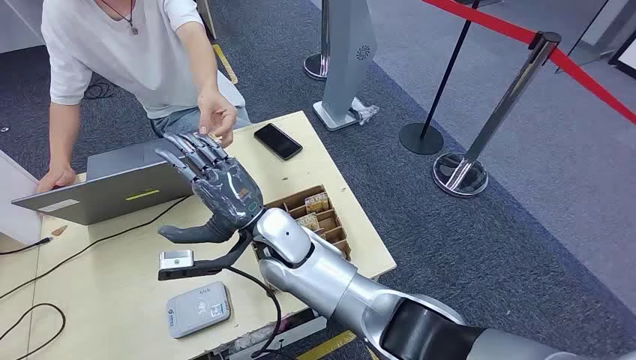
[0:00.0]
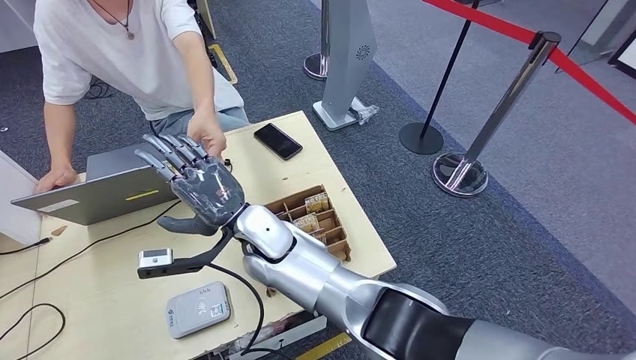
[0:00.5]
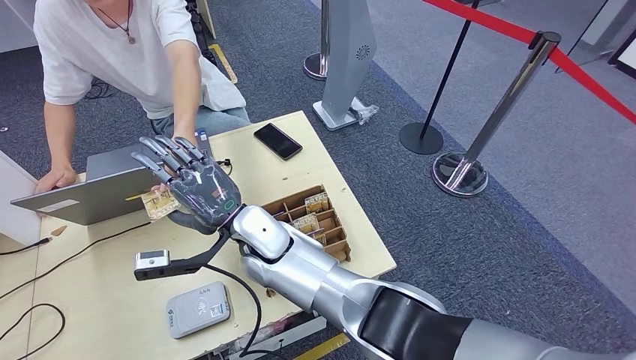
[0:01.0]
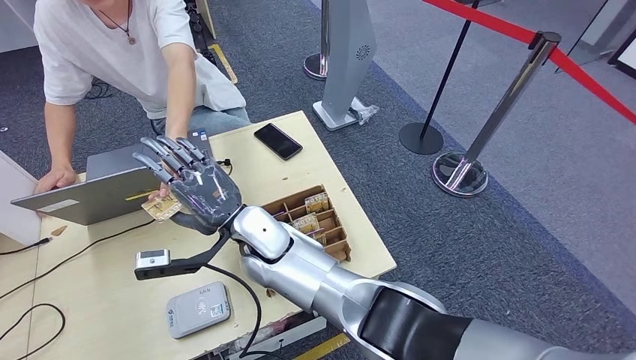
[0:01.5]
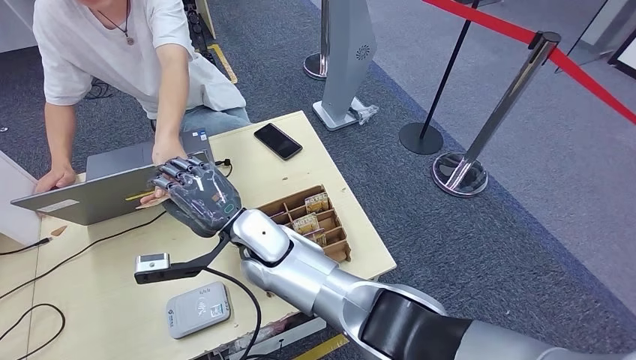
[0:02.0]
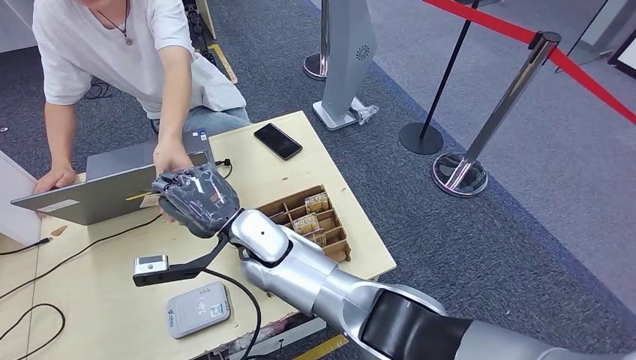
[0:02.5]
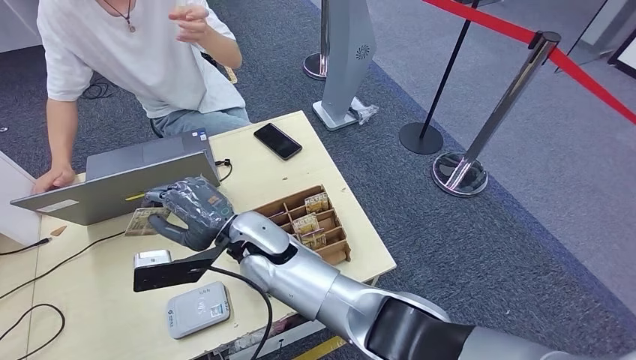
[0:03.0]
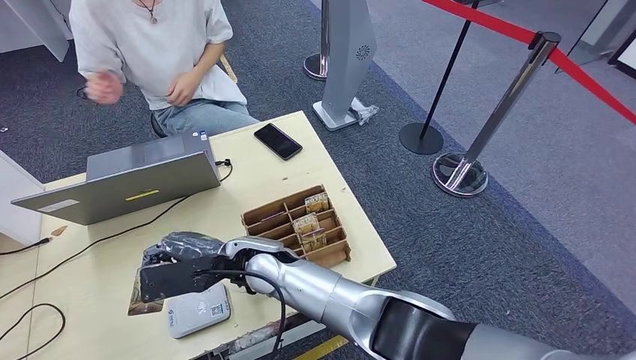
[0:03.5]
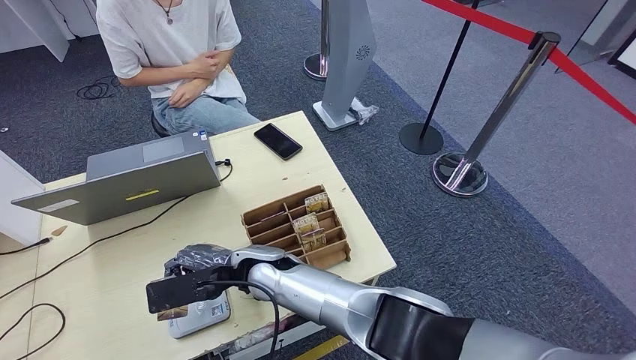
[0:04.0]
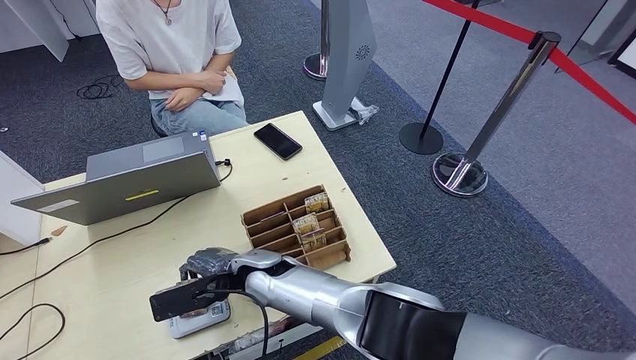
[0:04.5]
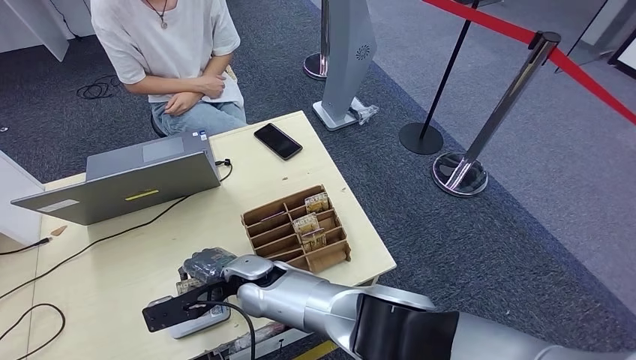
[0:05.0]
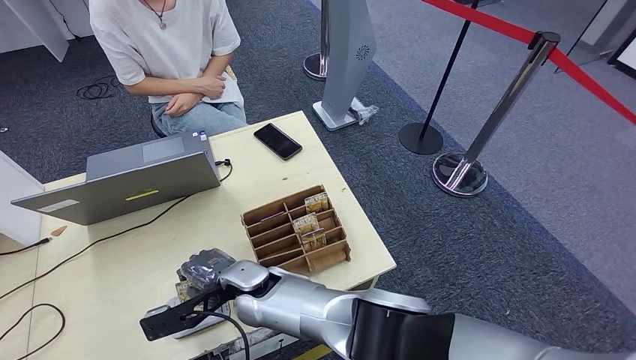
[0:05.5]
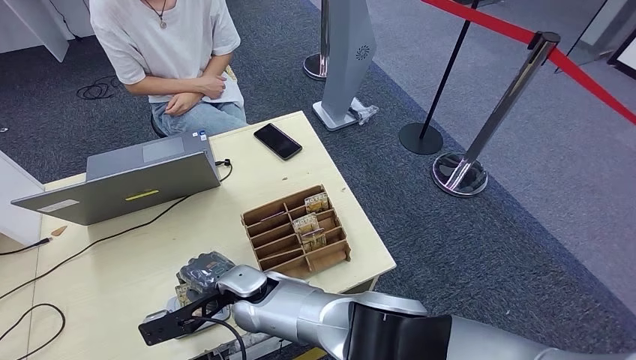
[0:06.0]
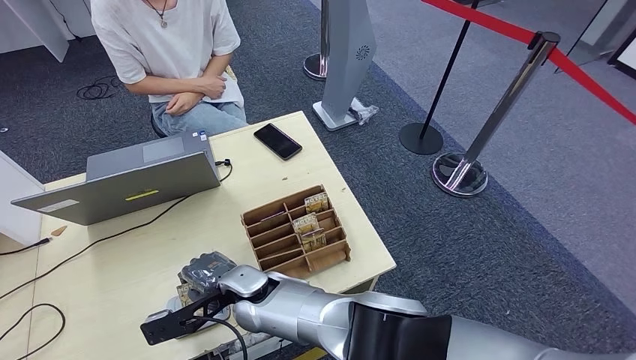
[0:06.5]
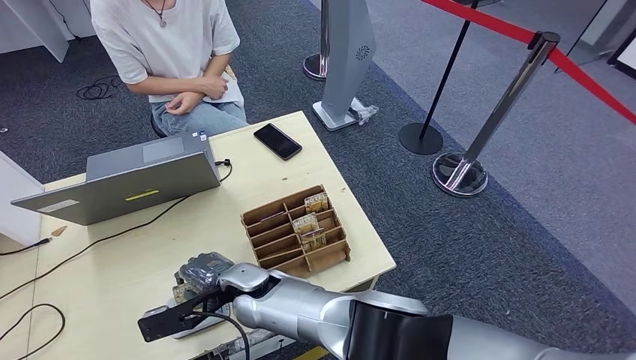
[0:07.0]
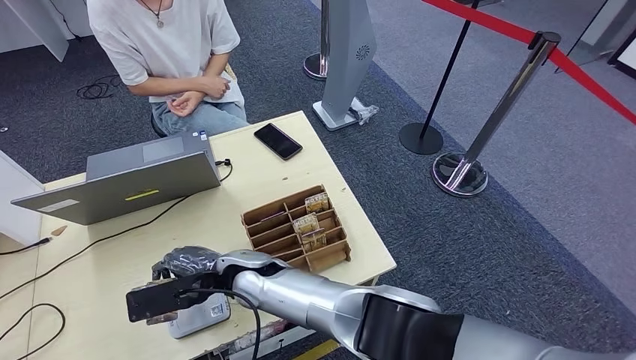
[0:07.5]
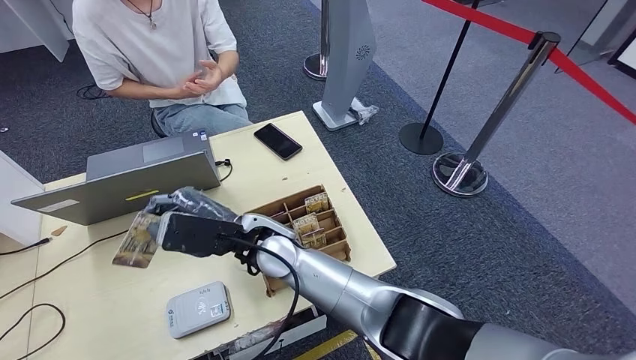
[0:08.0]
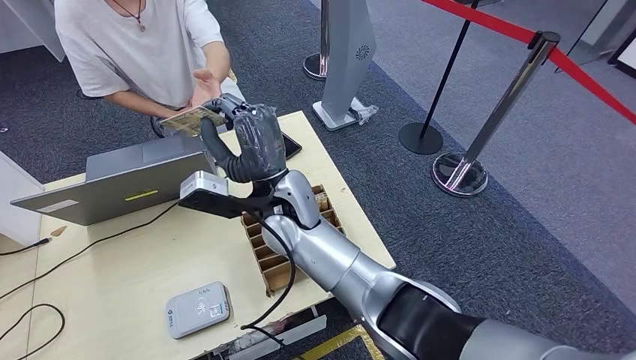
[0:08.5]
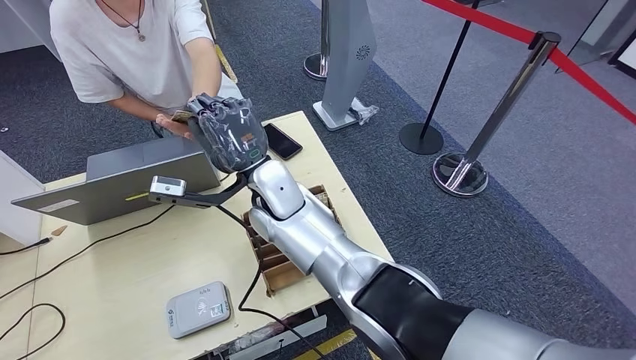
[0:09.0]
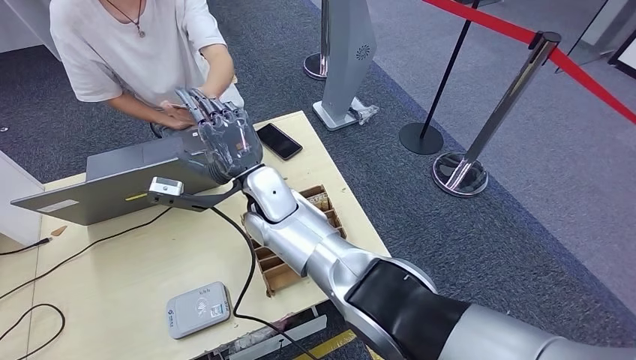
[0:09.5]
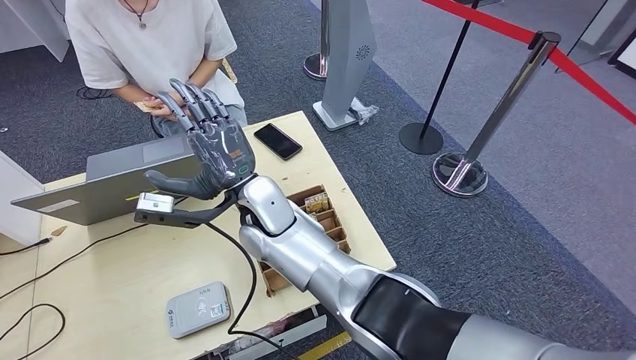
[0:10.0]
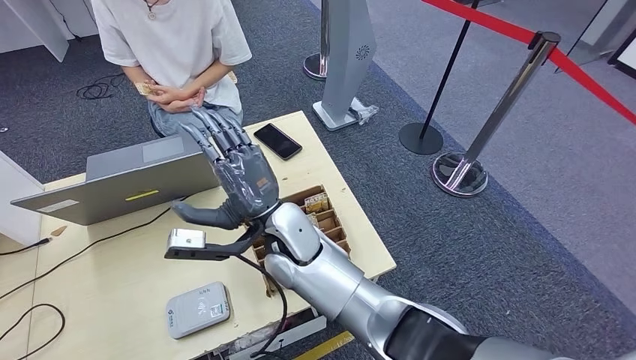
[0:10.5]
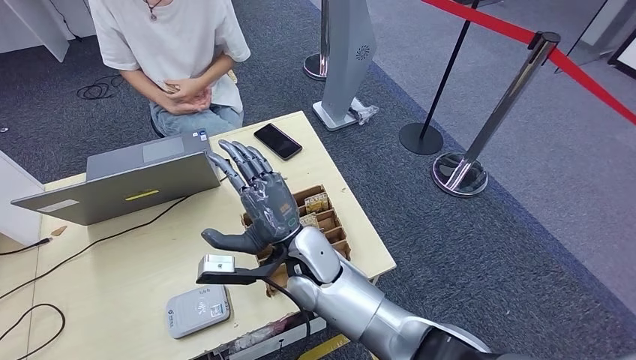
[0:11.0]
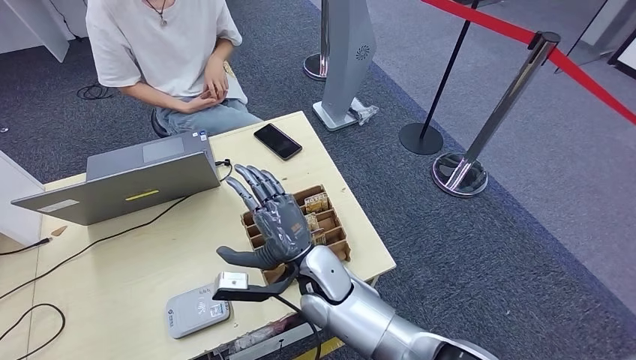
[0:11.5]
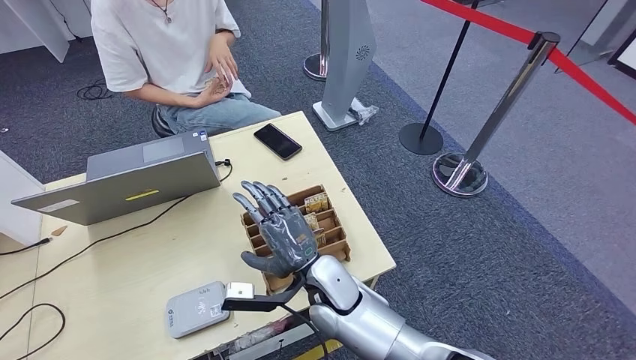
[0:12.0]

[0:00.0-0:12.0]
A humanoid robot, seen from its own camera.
Step, 0:00.0 to 0:03.5: Take the ID card from the person's hand.
Step, 0:04.0 to 0:06.0: Place the ID card on the card reader.
Step, 0:06.5 to 0:11.5: Hand the ID card to the person.
0:04.0 to 0:06.0: The right hand changes place by roughly 5 cm.
0:06.0 to 0:08.0: The right hand moves upward, about 10 cm.
0:10.0 to 0:12.0: The right hand heads backward, downward and to the right, covering approximately 20 cm.

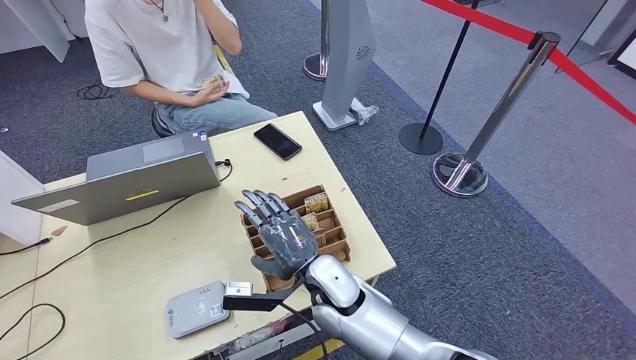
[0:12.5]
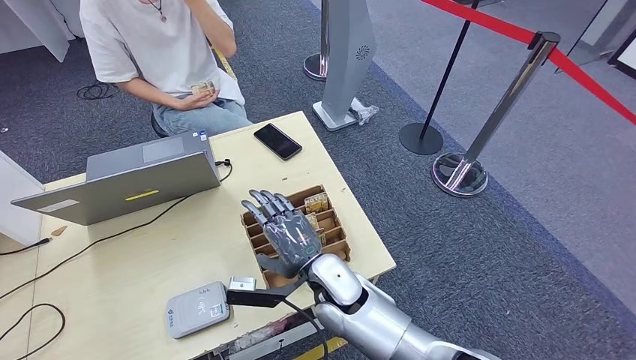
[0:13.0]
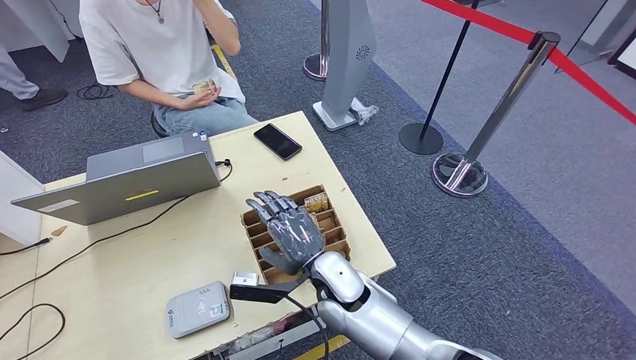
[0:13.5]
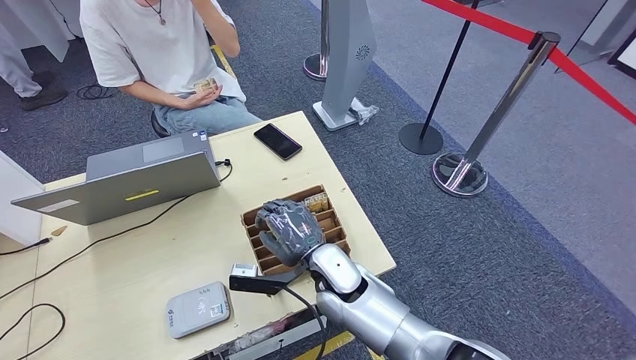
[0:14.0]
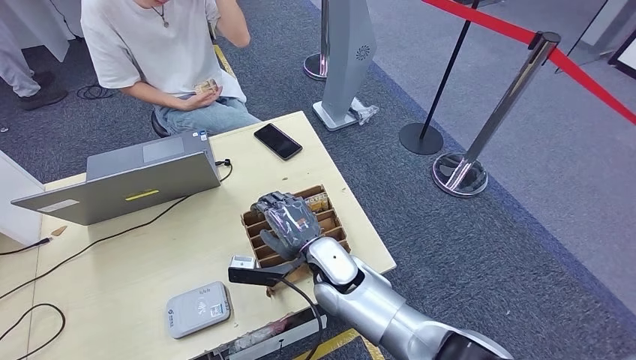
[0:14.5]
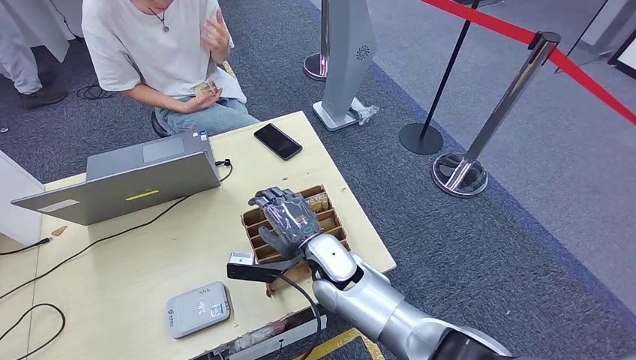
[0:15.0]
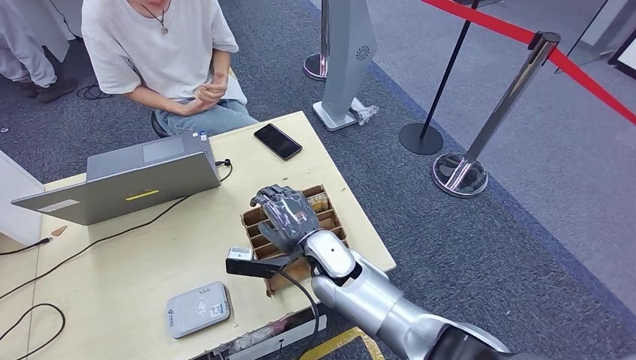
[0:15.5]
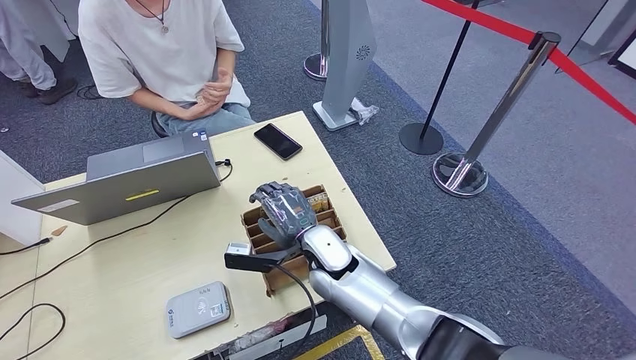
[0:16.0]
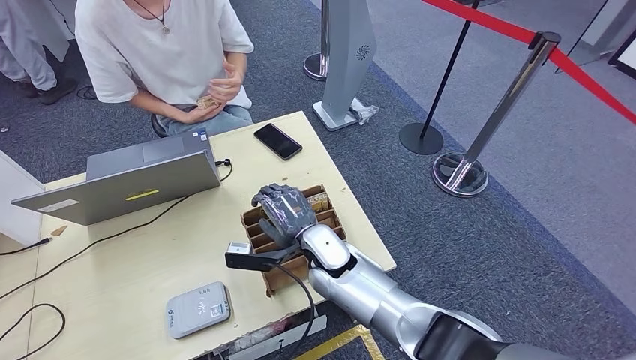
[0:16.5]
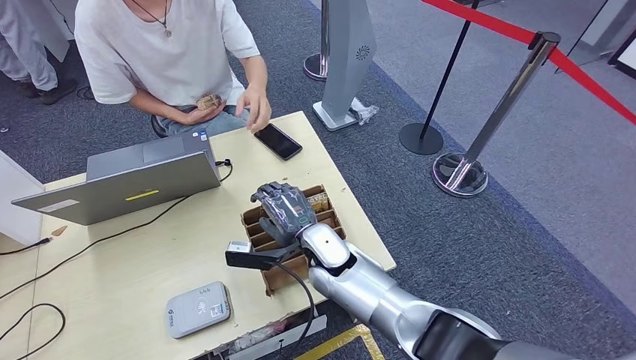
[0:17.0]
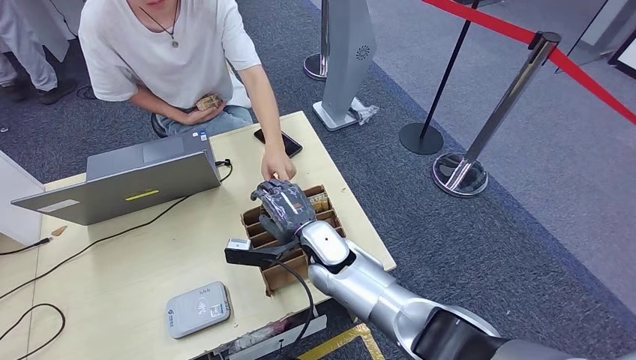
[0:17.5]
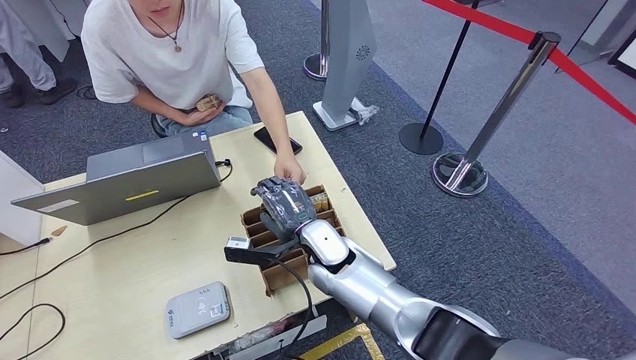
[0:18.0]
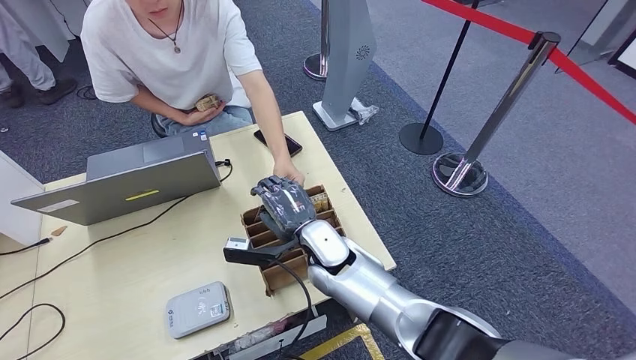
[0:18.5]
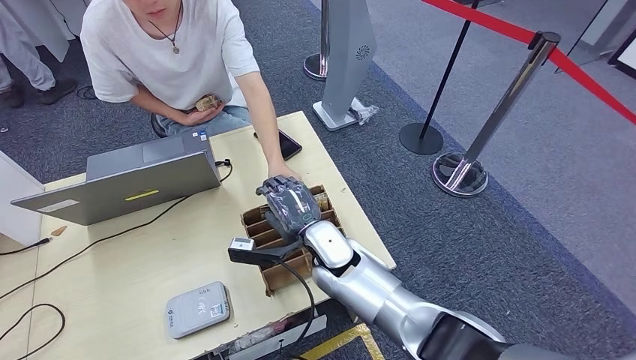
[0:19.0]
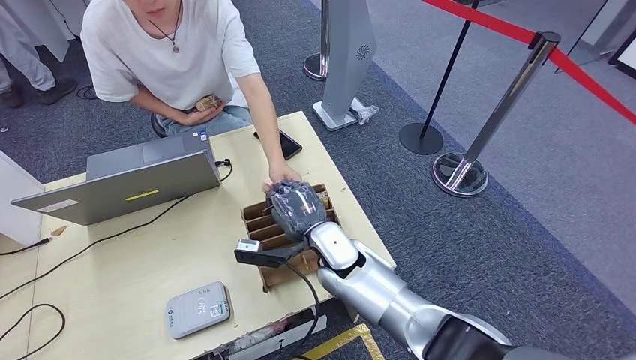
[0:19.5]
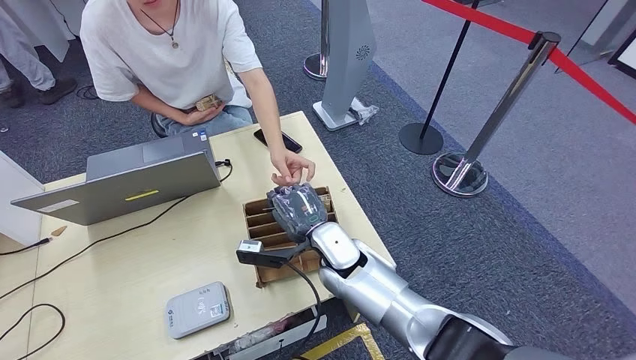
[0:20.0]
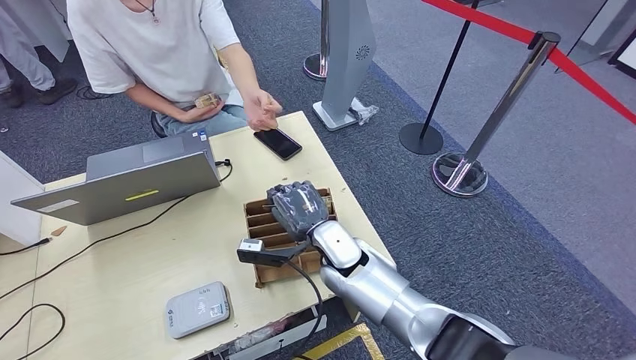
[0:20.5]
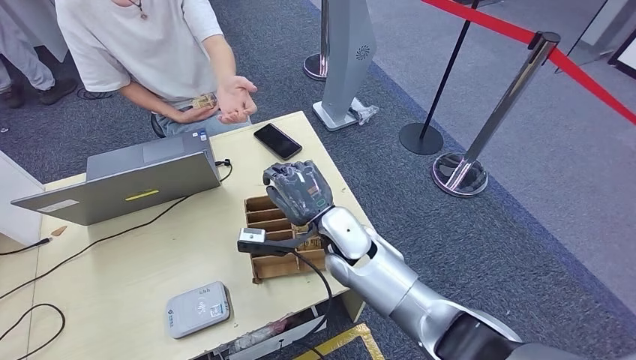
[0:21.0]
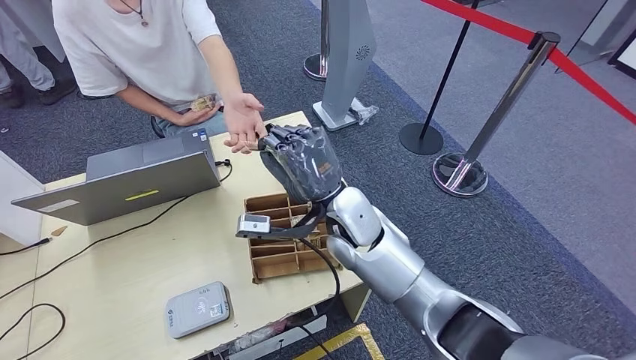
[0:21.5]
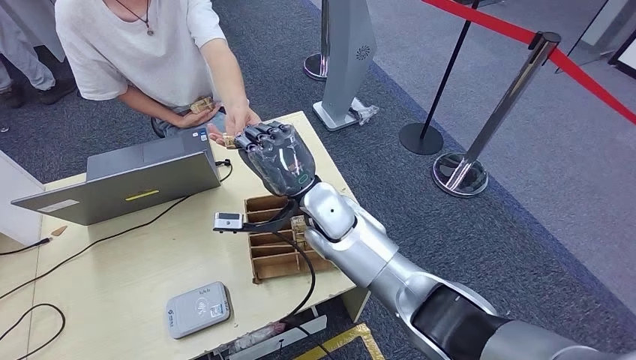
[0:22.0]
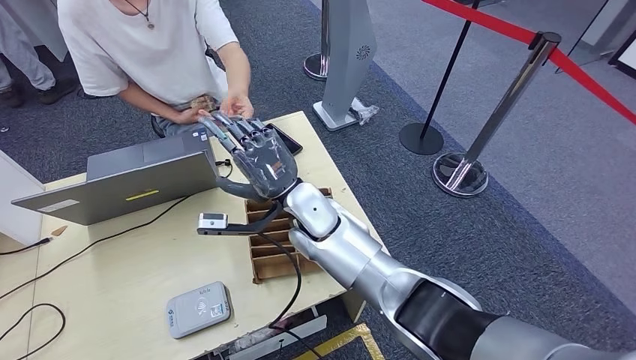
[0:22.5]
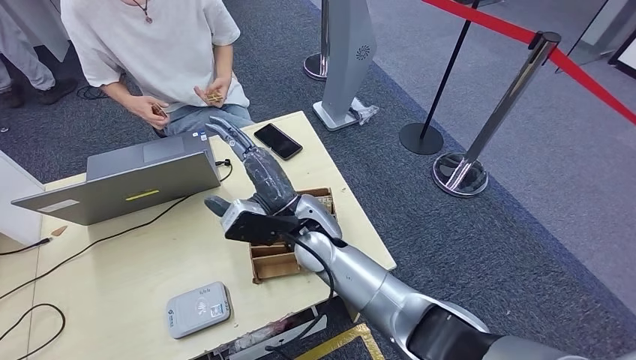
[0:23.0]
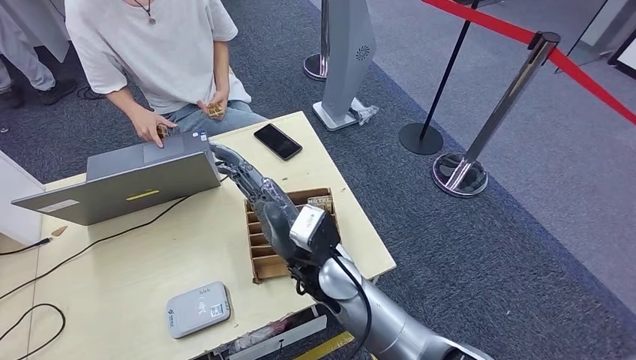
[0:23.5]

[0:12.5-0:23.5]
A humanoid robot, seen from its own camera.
Step, 0:12.5 to 0:20.5: Pick up the room key from the key card box.
Step, 0:21.5 to 0:23.5: Hand the room key to the person.
0:12.5 to 0:16.0: The hands stay close to where they were, moving slightly.
0:16.0 to 0:18.0: Both hands stay about where they are.
0:18.0 to 0:20.0: The hands stay close to where they were, moving slightly.
0:20.0 to 0:21.5: The right hand travels upward by about 10 cm.
0:21.5 to 0:23.5: The right hand travels to the left by approximately 10 cm.
